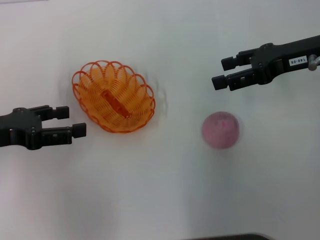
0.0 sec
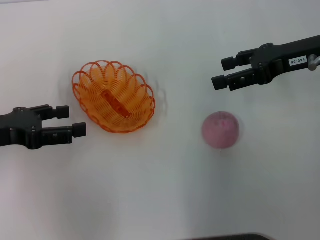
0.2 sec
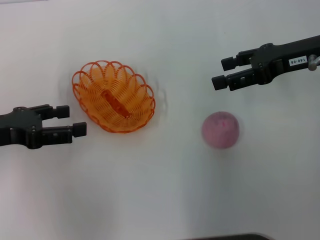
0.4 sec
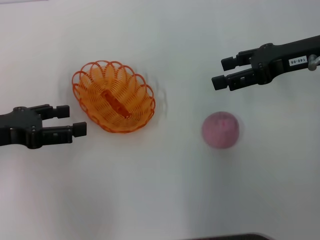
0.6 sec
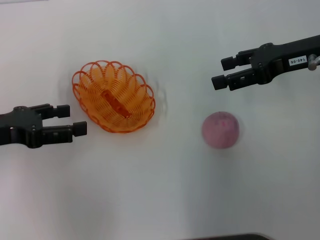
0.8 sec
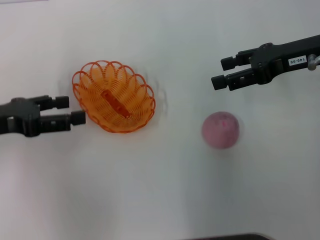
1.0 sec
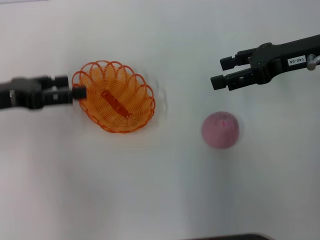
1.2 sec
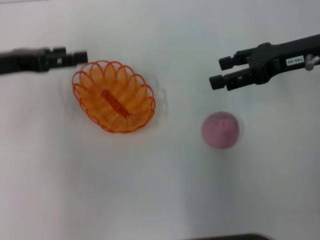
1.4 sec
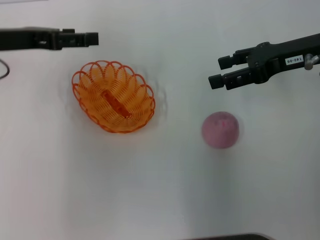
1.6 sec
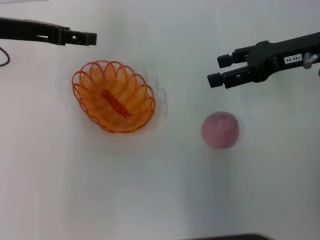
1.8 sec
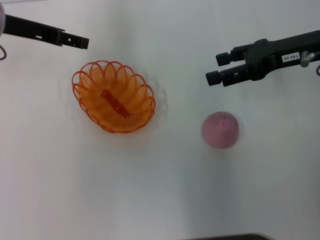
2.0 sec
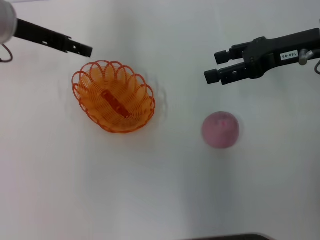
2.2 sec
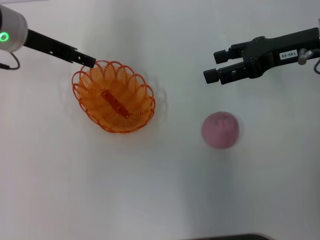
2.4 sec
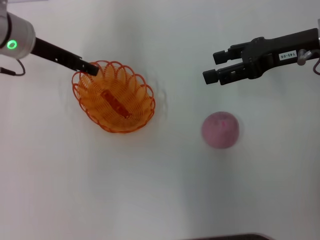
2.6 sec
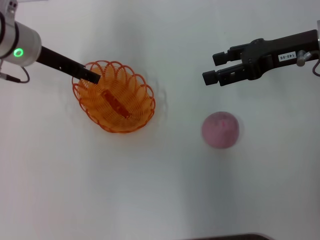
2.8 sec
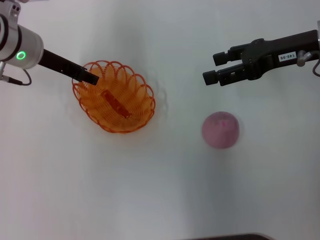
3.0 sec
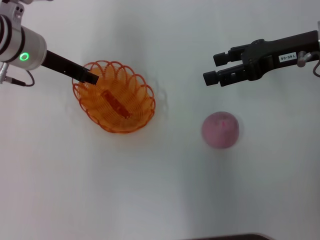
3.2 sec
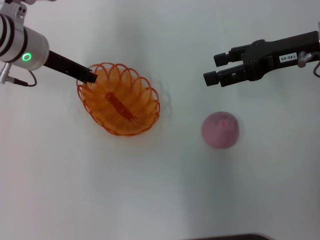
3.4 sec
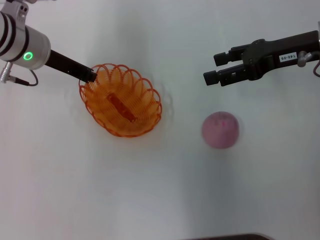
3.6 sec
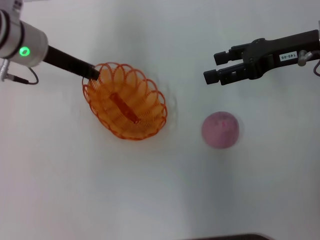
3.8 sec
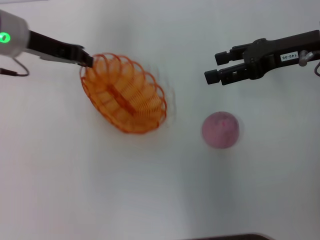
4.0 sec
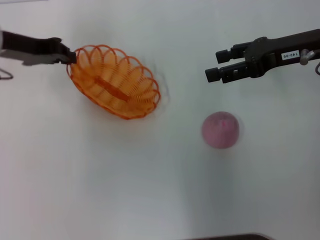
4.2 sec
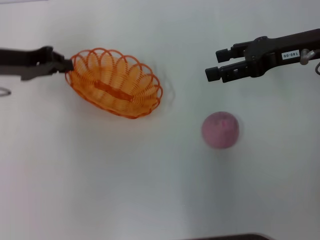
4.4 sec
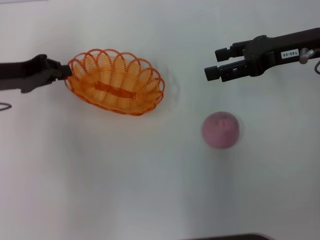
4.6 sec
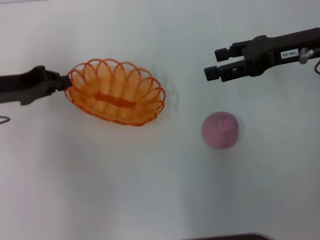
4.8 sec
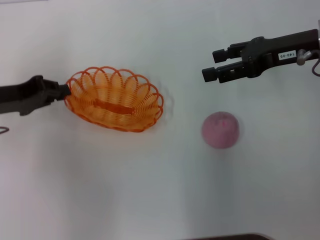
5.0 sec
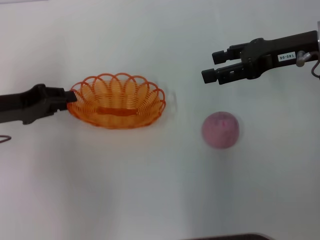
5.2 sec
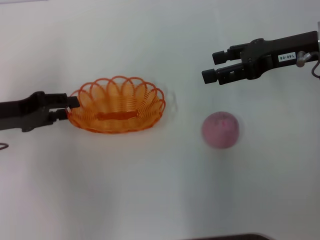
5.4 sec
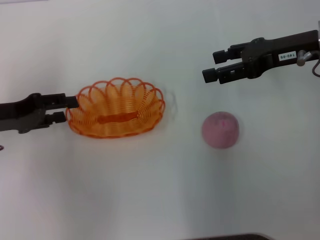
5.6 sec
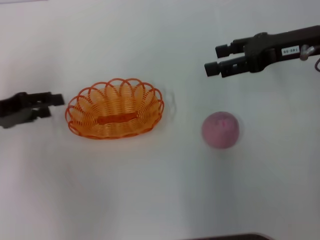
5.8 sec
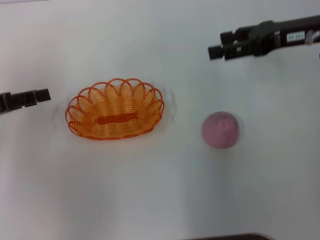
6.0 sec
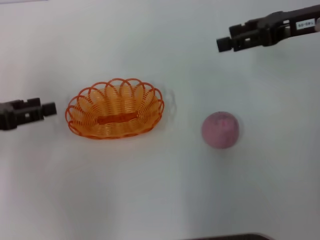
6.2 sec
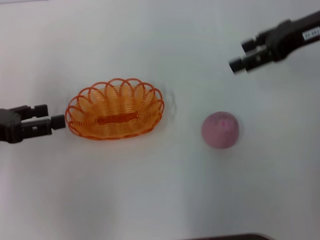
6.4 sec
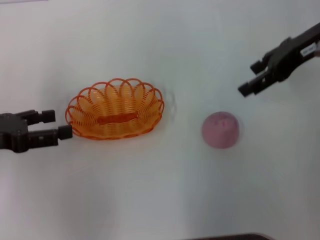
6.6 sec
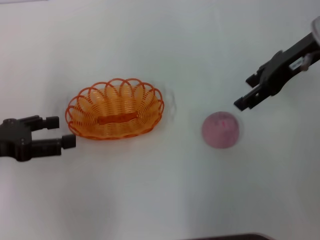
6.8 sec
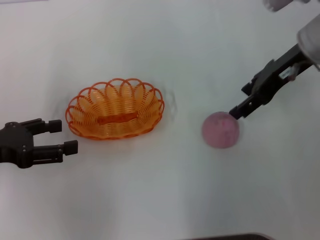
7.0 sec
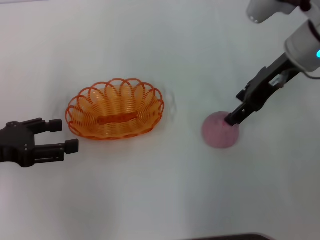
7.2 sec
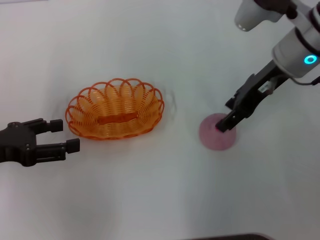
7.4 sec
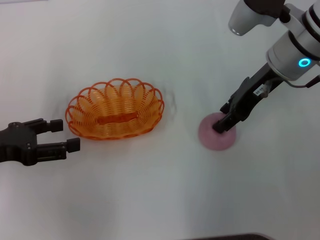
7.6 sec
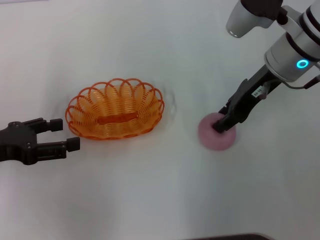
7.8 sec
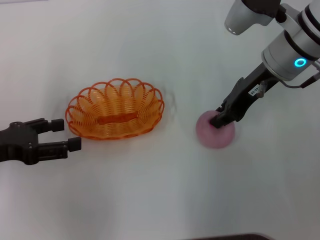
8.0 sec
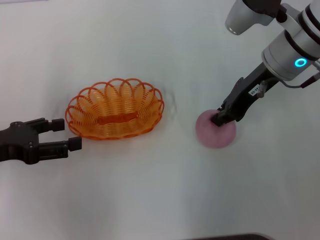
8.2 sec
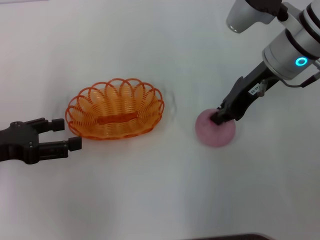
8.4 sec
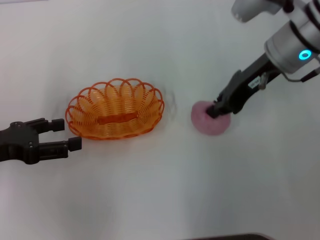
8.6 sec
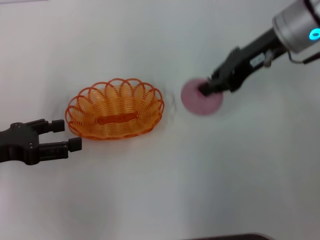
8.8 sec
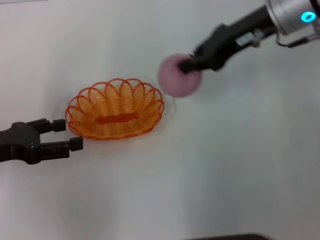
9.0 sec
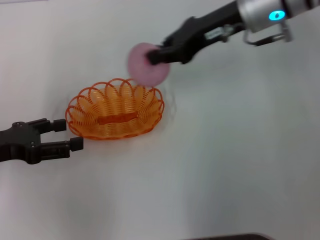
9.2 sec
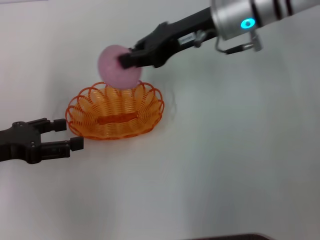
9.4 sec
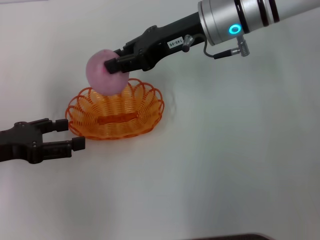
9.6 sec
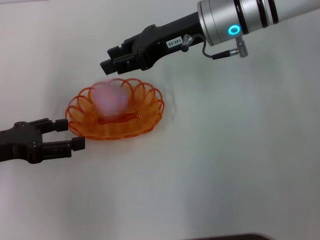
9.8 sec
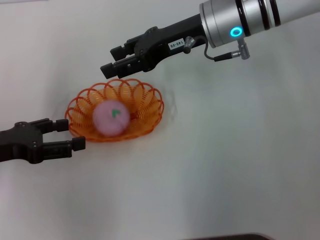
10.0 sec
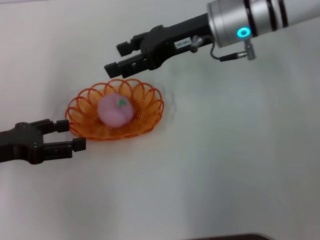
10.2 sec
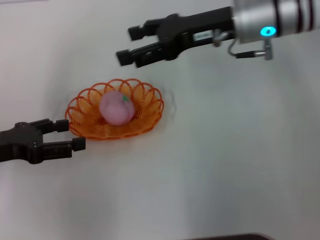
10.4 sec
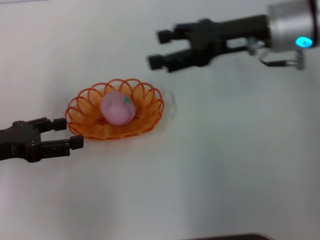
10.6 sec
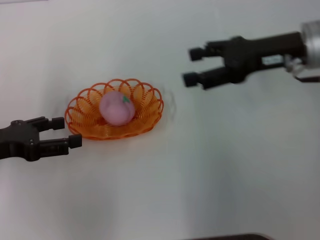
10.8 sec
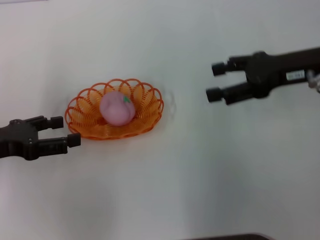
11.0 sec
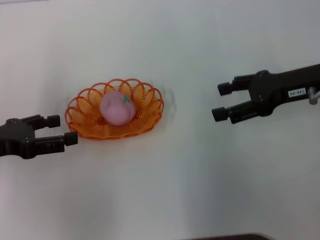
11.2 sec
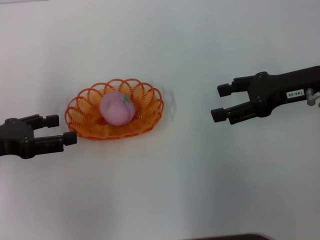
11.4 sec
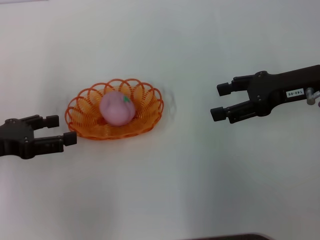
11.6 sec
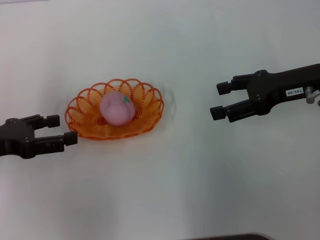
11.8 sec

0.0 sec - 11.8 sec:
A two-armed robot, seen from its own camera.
Step, 0.0 sec - 3.8 sec: Pick up the basket with the left gripper.
Step, 4.0 sec - 6.0 sec: Place the basket in the center of view with the left gripper.
Step, 6.2 sec - 8.8 sec: Pick up the peach with the right gripper.
Step, 9.0 sec - 10.6 sec: Place the peach into the basket with the right gripper.
0.0 sec - 1.4 sec: The left gripper goes approximately 5 cm forward.
1.4 sec - 3.0 sec: The left gripper travels to the right and forward by about 10 cm.
3.0 sec - 4.4 sec: The left gripper goes roughly 5 cm to the left, and closes its fingers.
4.4 sec - 6.0 sec: The left gripper goes some 10 cm backward and to the left, and opens up.
6.0 sec - 7.4 sec: The right gripper travels to the left by about 5 cm.
7.4 sec - 8.8 sec: The right gripper closes.
8.8 sec - 10.4 sec: The right gripper opens.
10.4 sec - 11.8 sec: The right gripper shifts some 15 cm to the right and backward.

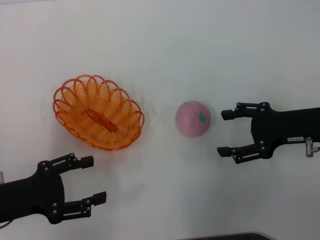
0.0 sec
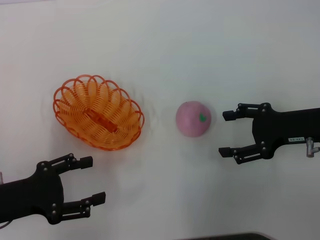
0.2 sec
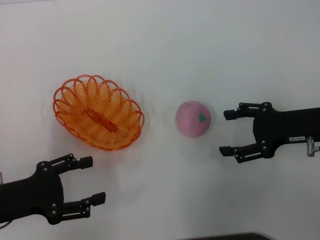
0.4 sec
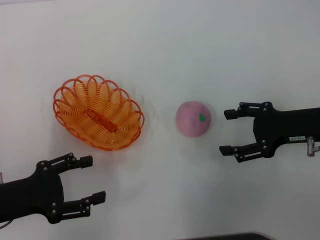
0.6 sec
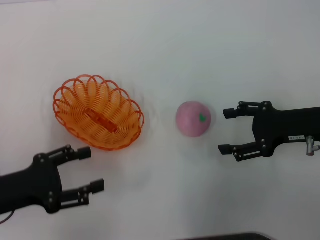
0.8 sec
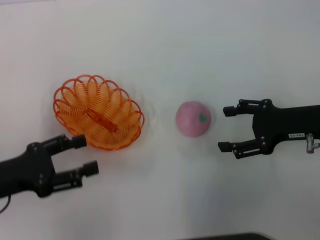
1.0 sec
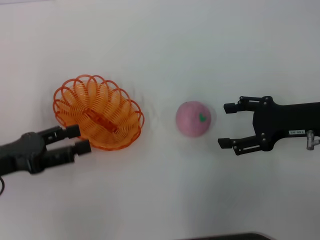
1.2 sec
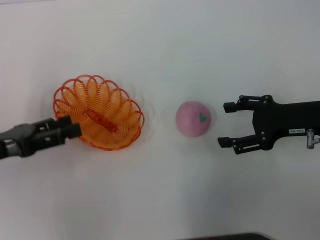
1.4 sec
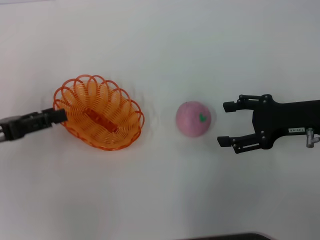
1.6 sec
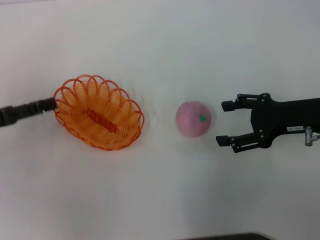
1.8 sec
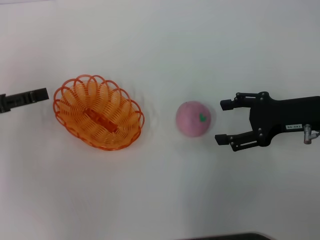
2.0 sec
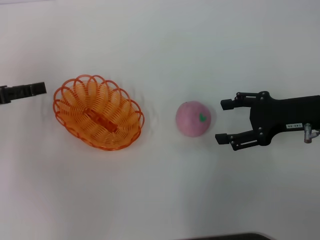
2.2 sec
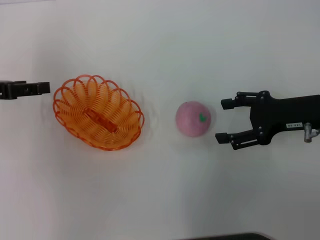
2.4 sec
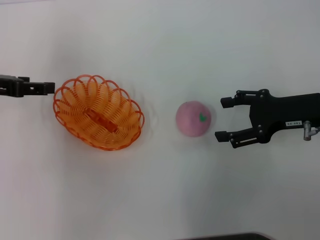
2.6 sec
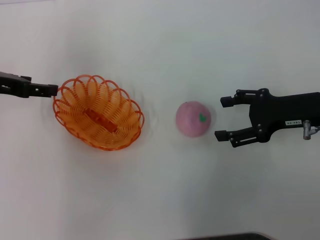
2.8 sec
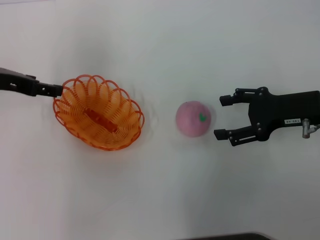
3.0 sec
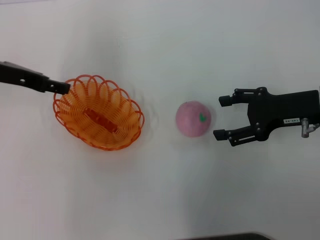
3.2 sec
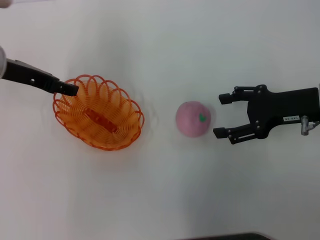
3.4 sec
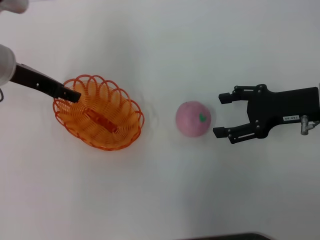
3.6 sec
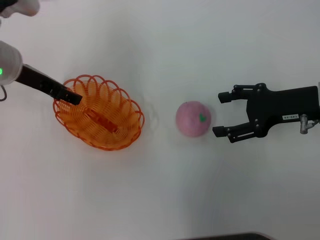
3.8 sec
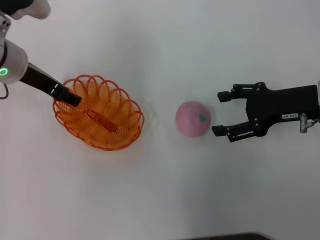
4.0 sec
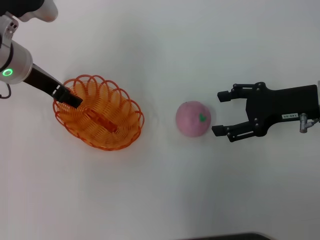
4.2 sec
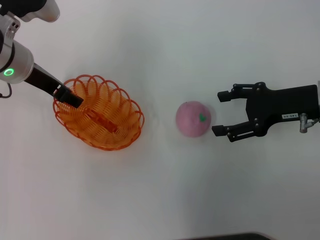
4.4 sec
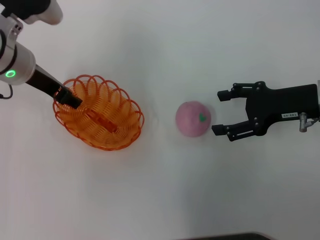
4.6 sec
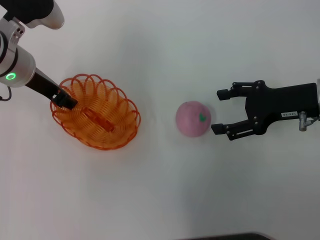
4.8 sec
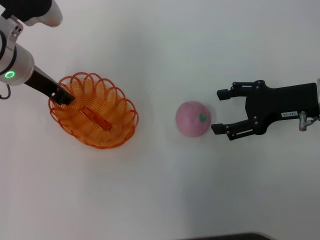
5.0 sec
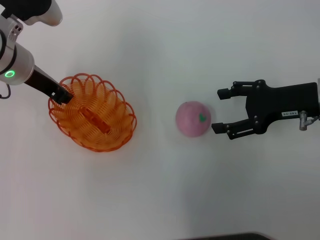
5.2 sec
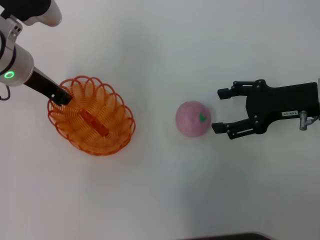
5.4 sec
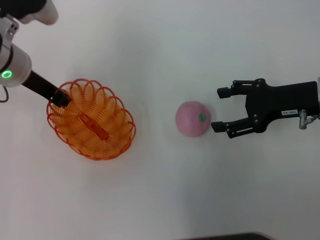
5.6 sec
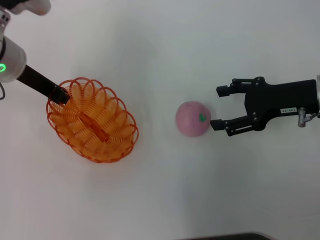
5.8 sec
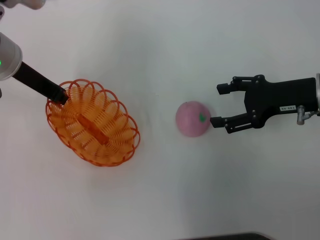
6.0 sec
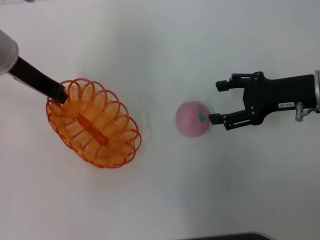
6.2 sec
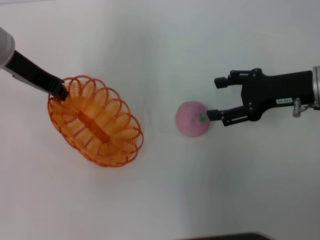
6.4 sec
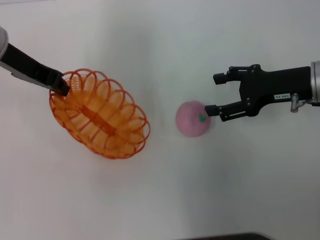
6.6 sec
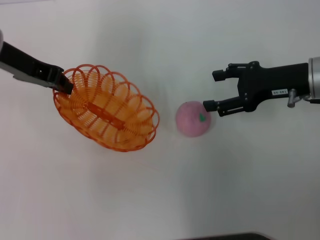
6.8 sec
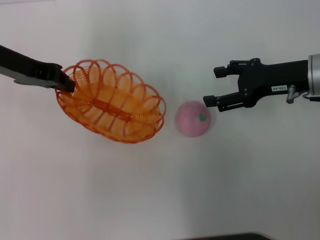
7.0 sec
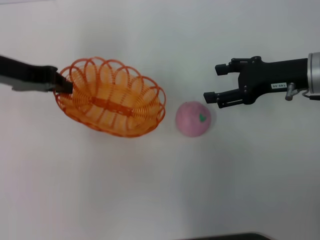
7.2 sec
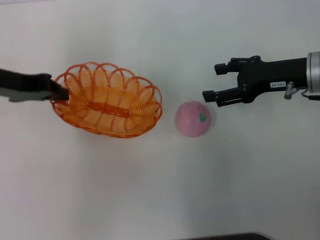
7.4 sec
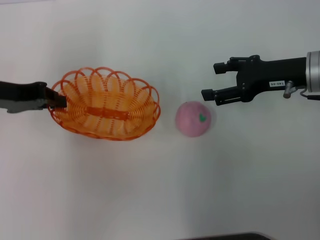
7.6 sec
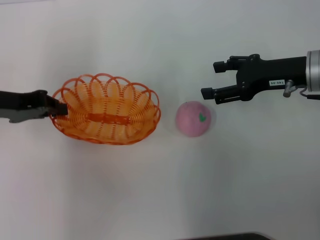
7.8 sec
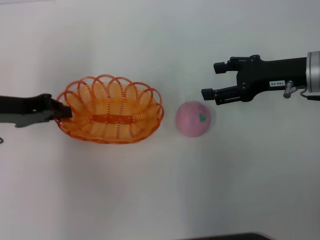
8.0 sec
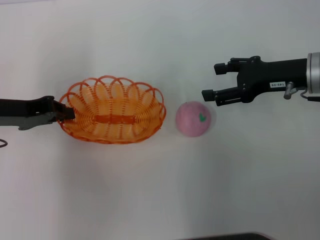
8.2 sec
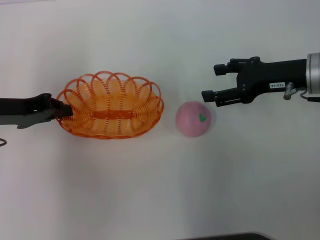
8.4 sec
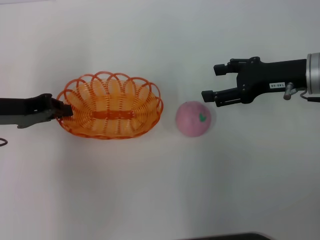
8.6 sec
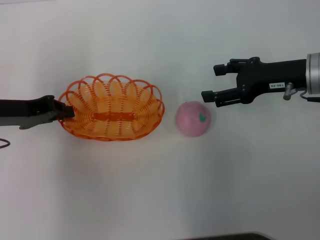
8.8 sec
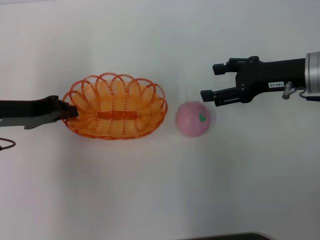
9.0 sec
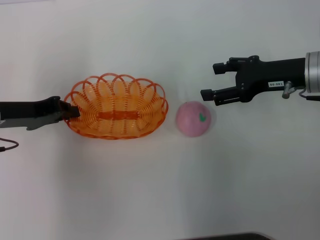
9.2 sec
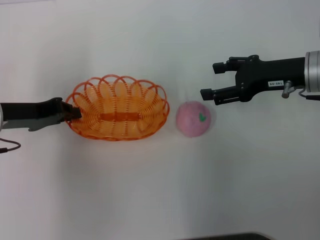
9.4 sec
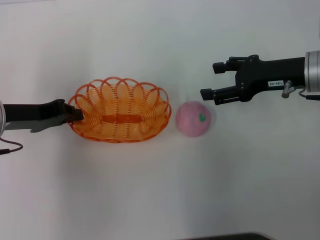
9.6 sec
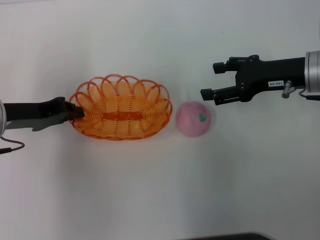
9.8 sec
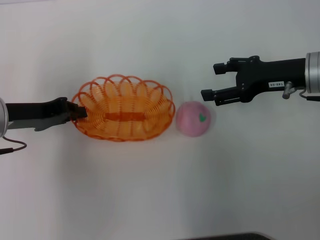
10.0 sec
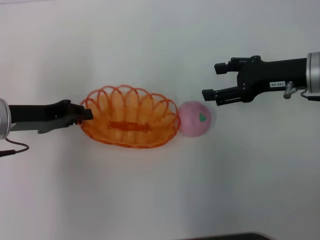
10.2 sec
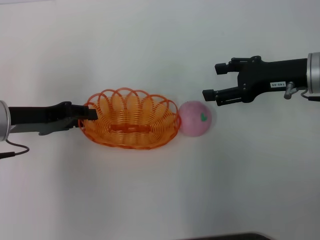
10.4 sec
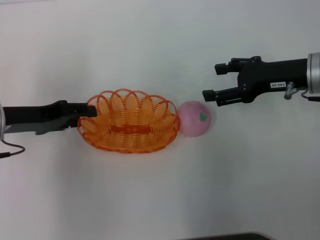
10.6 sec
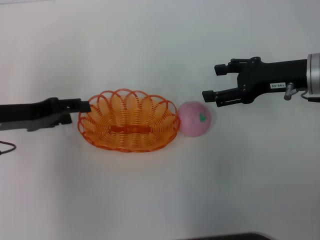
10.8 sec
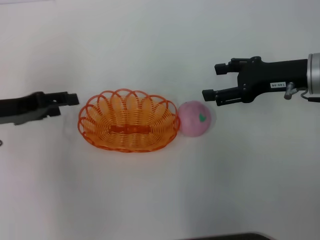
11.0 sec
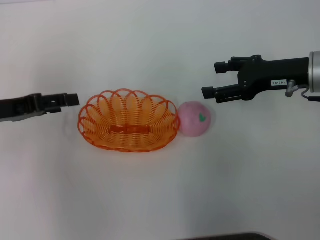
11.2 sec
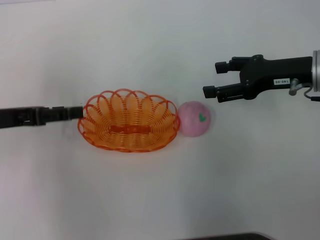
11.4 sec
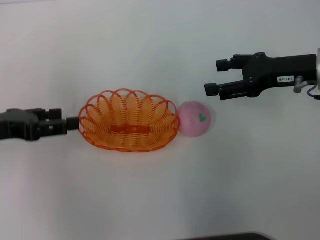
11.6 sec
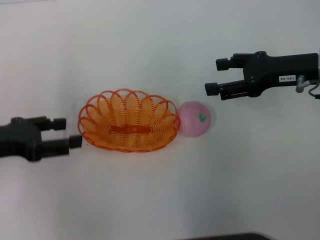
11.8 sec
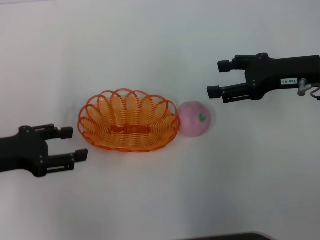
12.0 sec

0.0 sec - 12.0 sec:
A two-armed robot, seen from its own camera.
Step, 0.0 sec - 6.6 sec: Pick up the basket with the left gripper.
0.0 sec - 1.6 sec: The left gripper goes about 5 cm forward.
1.6 sec - 3.0 sec: The left gripper heads forward, upward and to the right, covering approximately 15 cm.
3.0 sec - 4.4 sec: The left gripper travels to the right by approximately 5 cm.
4.4 sec - 6.0 sec: The left gripper closes its fingers.
6.0 sec - 7.6 sec: The left gripper goes some 10 cm to the left and backward.
7.6 sec - 10.4 sec: The grippers make only small movements.
10.4 sec - 12.0 sec: The left gripper heads backward, covering approximately 5 cm, and opens.
